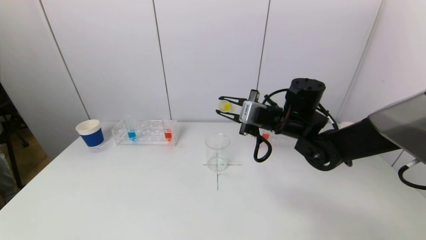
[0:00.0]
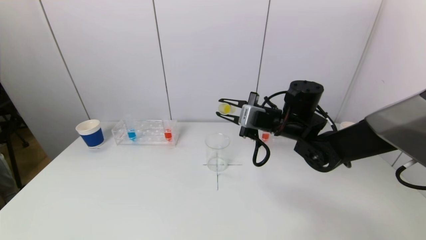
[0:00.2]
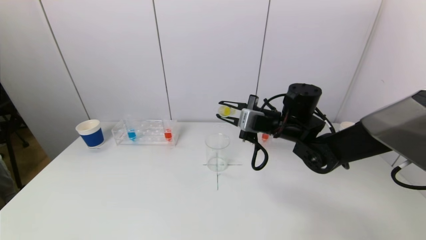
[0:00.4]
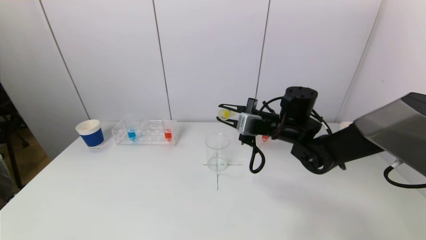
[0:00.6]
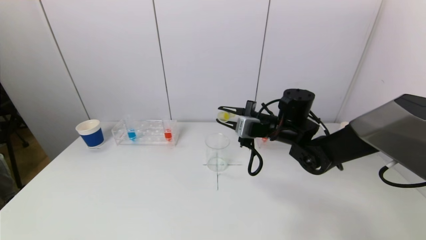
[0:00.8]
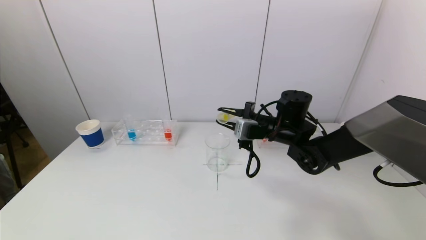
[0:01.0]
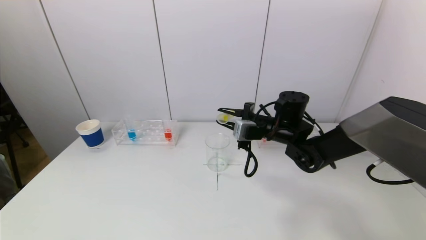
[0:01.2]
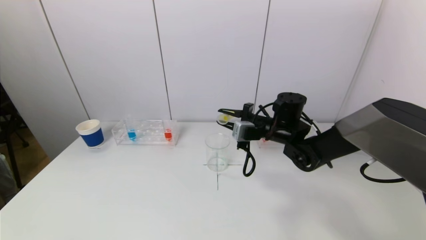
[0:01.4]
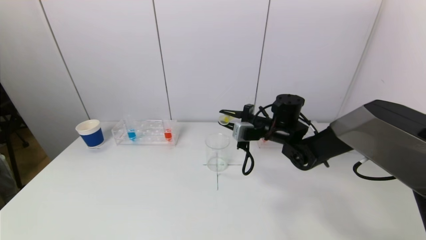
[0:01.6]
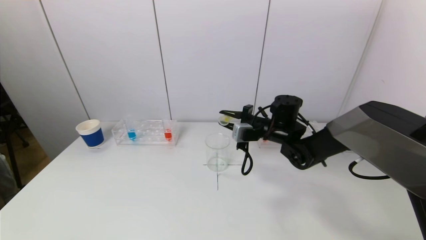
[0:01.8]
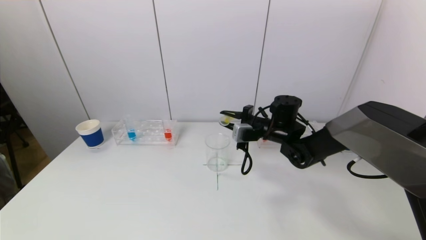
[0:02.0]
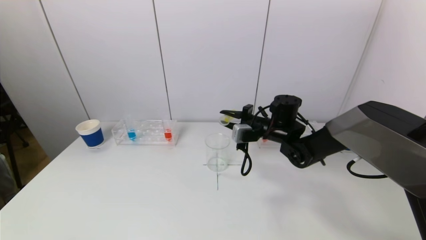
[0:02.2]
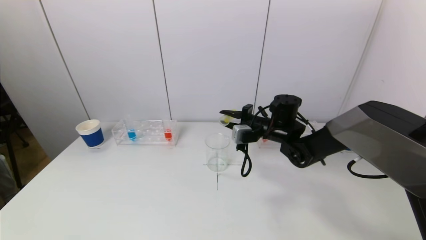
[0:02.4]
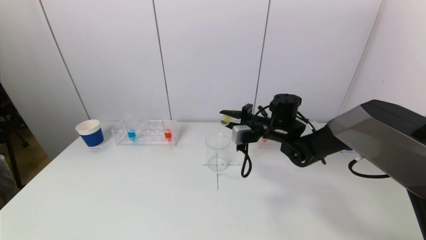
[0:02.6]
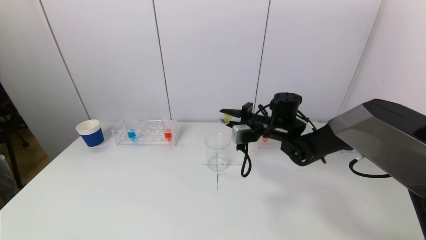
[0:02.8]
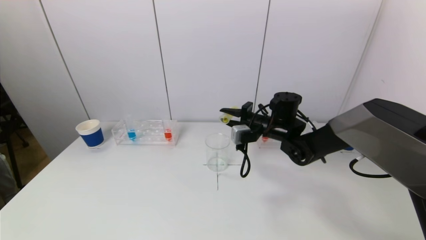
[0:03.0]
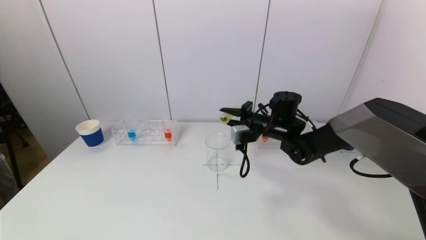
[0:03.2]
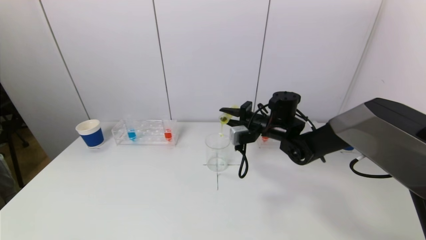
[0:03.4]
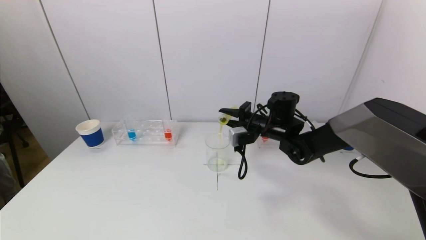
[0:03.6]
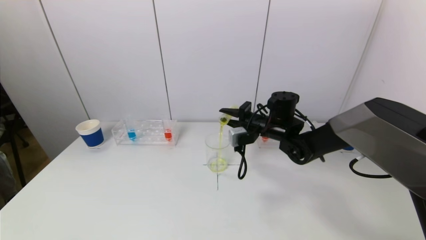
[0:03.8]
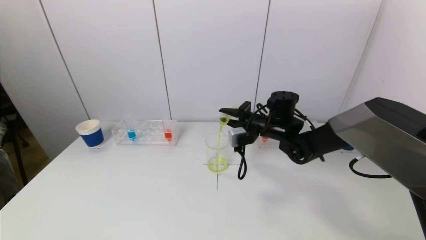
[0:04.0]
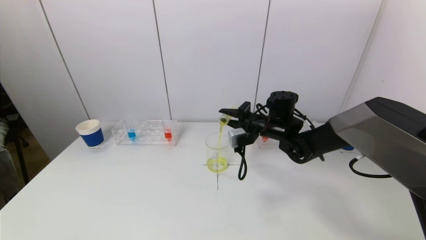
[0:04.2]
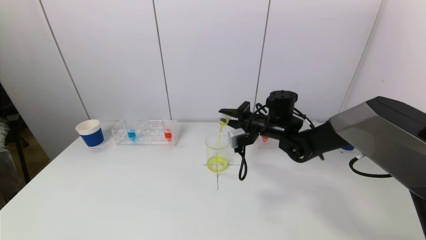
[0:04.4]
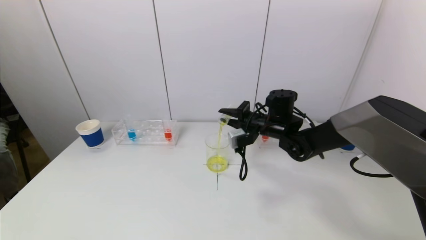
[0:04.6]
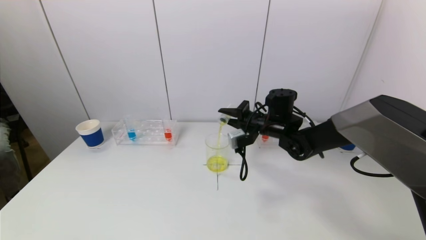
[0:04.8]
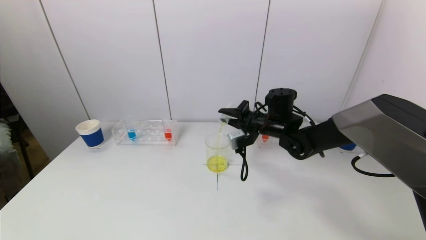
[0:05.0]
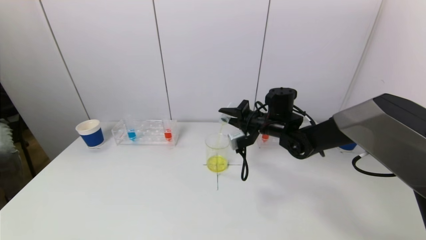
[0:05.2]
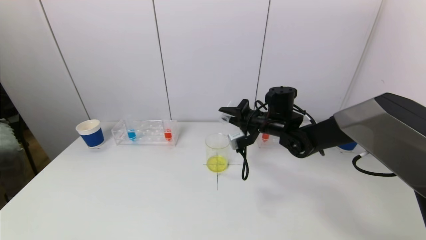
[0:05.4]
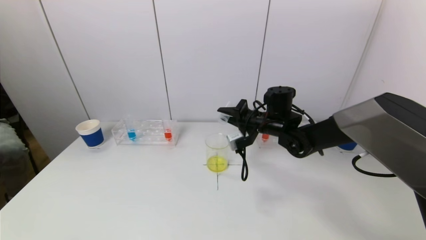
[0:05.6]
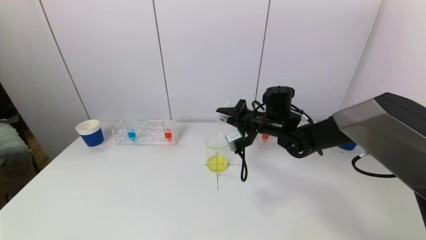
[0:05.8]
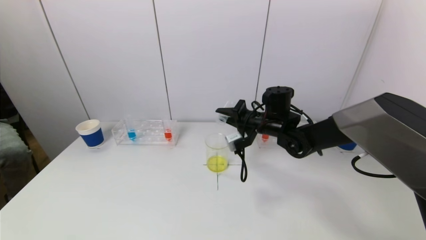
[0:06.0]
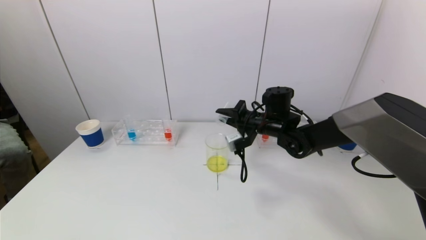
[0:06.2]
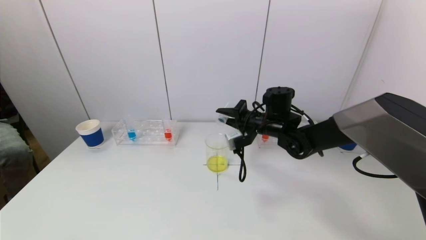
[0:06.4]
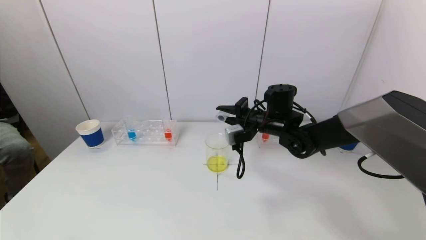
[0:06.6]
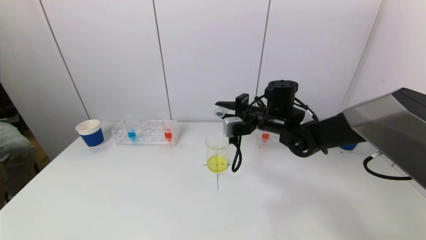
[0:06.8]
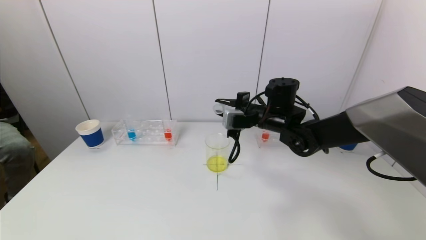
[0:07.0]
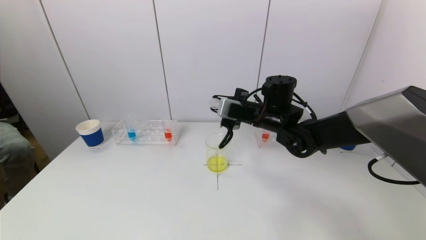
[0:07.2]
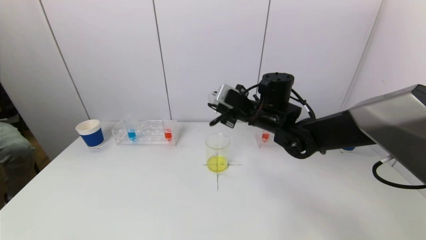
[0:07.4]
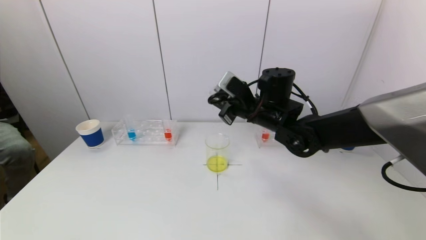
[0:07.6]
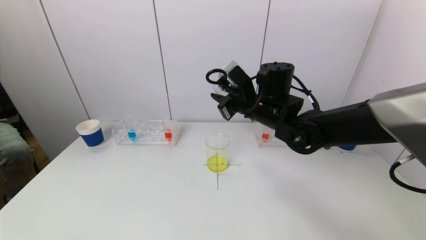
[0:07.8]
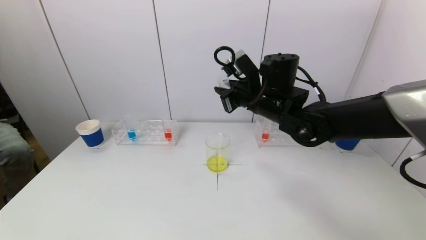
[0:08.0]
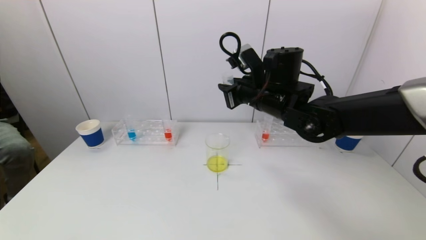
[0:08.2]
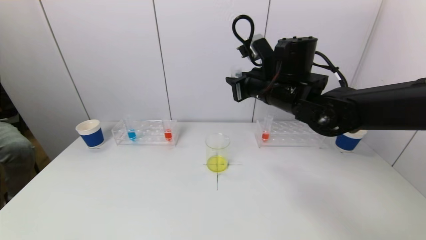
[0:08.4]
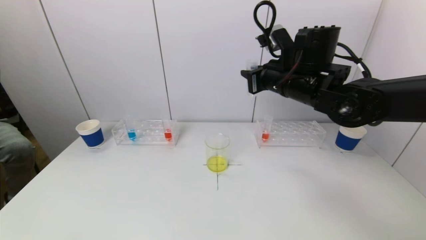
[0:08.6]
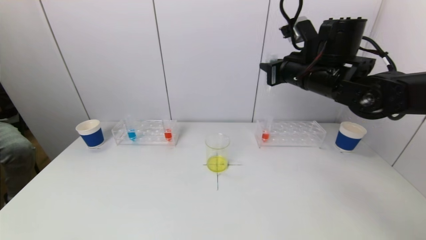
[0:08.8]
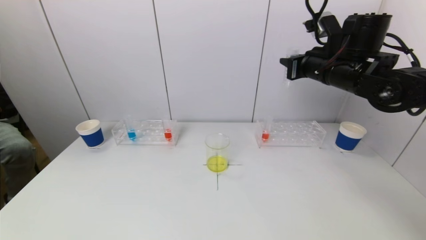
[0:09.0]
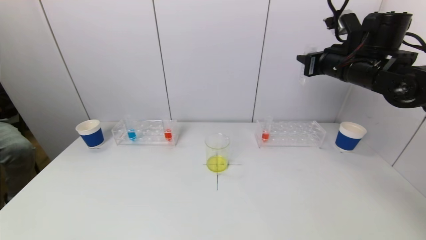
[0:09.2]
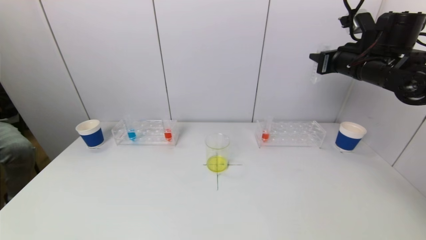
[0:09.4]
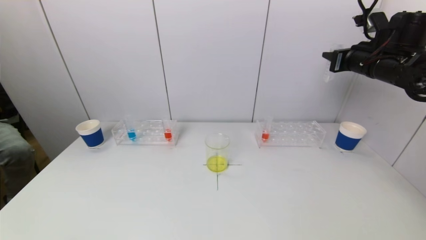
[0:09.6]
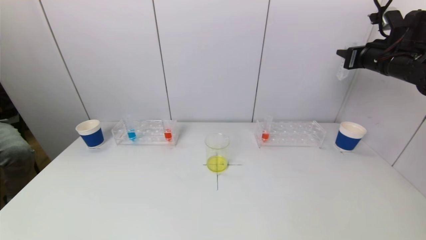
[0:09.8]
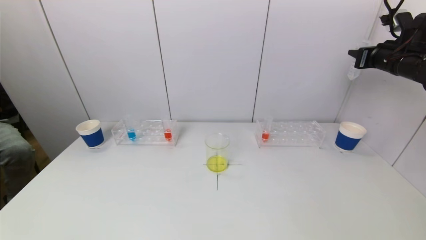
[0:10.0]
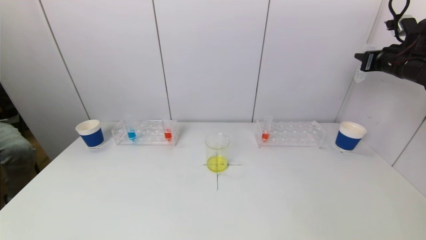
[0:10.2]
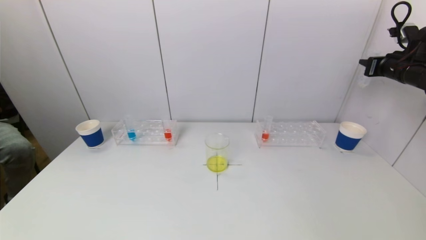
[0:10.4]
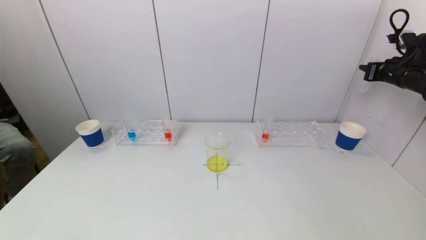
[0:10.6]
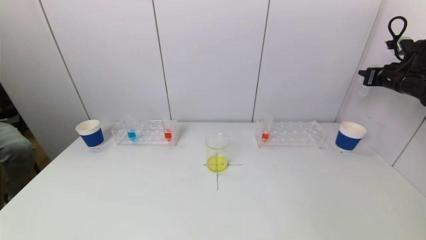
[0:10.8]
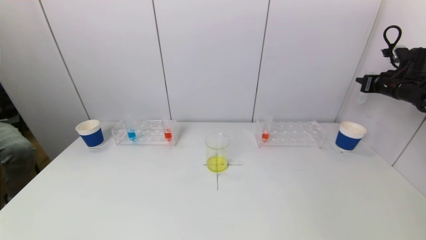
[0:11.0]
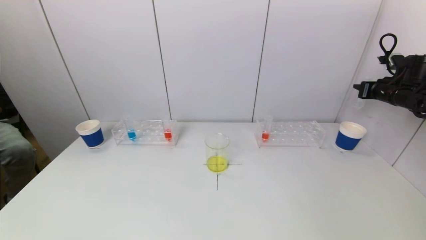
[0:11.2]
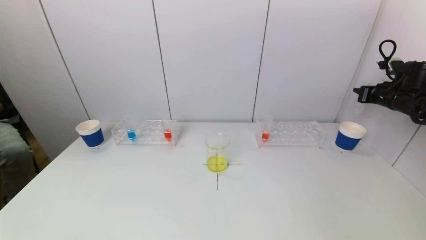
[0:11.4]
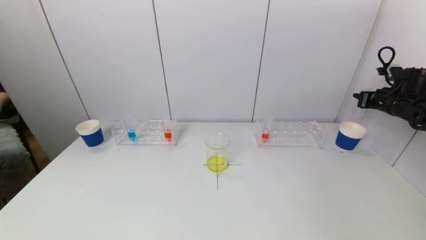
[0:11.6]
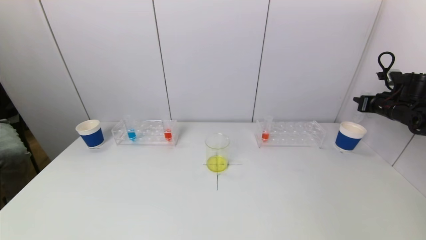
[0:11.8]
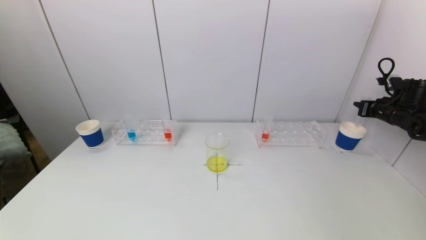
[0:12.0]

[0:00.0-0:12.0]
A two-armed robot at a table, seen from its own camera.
Task of the whole recording: pick up a test tube with pigment on left test tube rack and a test tube with pigment on right test tube rack by grippers and pour them into the beaker.
Step, 0:00.0 to 0:05.8: Pour the yellow reagent into the graduated cylinder with the right gripper.
0:00.0 to 0:01.6: The right gripper goes about 5 cm downward.
0:01.6 to 0:03.0: The grippers make only small movements.
0:03.0 to 0:04.4: The grippers move only a little.
0:04.4 to 0:06.0: There are only small adjustments of the grippers.
0:06.0 to 0:07.6: The right gripper is displaced upward by approximately 5 cm.
0:07.6 to 0:09.0: The right gripper shifts about 15 cm to the right and upward.
0:09.0 to 0:10.4: The right gripper travels to the right by approximately 20 cm.
0:10.4 to 0:12.0: The right gripper goes roughly 10 cm downward.

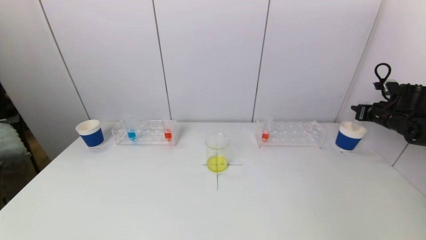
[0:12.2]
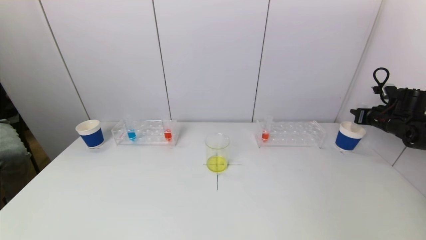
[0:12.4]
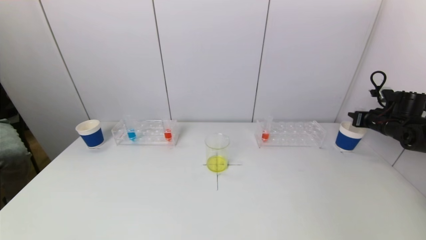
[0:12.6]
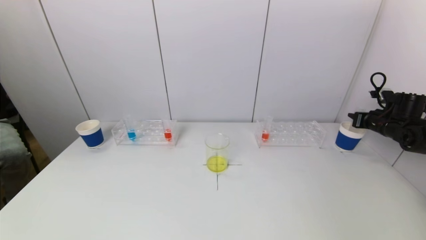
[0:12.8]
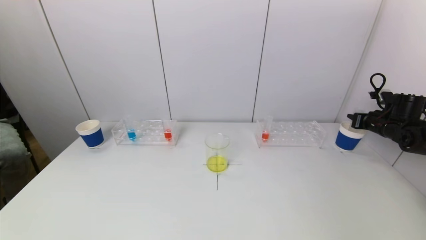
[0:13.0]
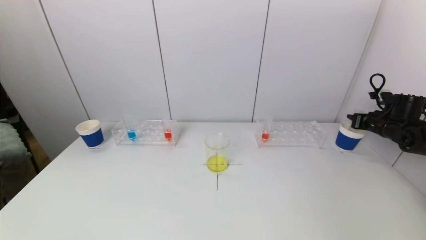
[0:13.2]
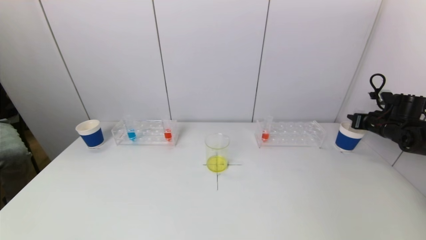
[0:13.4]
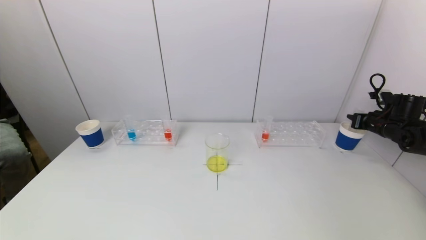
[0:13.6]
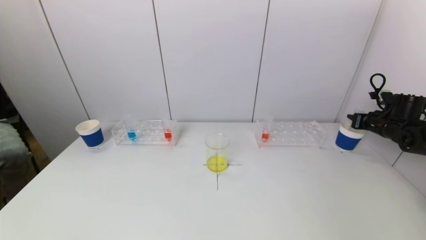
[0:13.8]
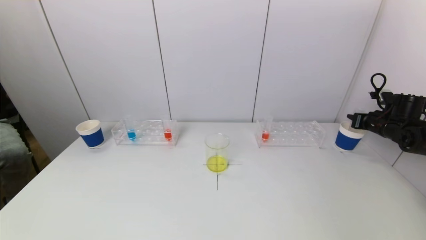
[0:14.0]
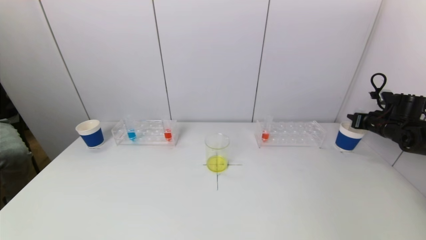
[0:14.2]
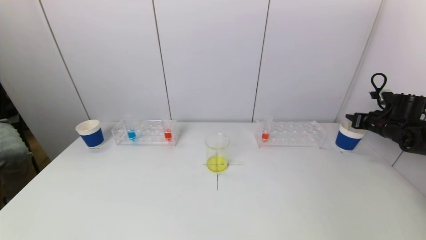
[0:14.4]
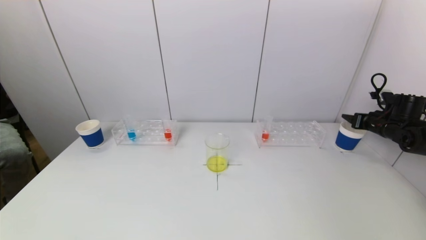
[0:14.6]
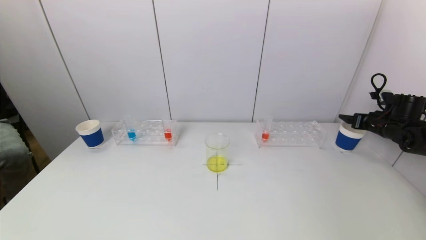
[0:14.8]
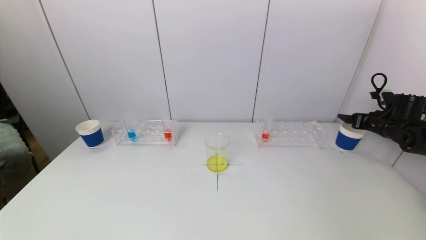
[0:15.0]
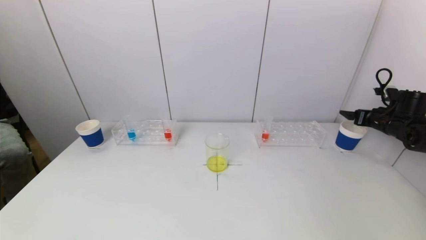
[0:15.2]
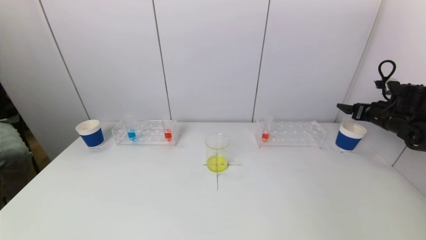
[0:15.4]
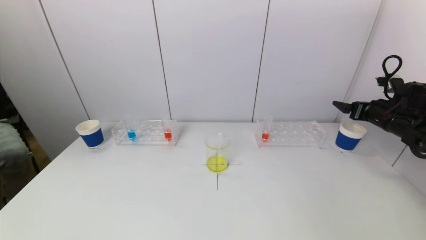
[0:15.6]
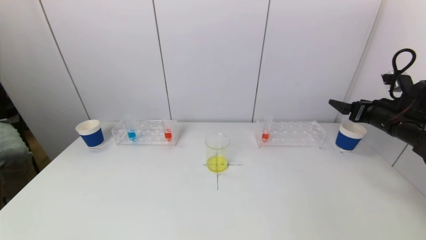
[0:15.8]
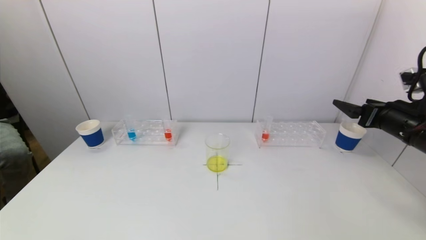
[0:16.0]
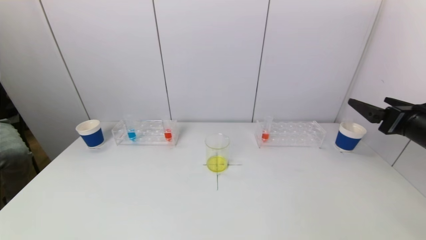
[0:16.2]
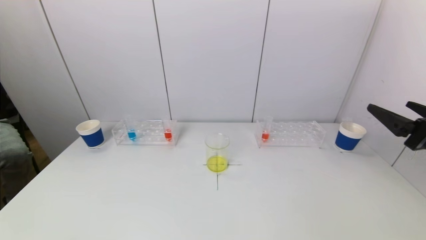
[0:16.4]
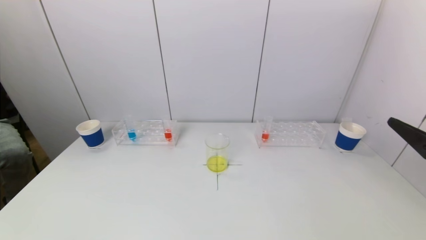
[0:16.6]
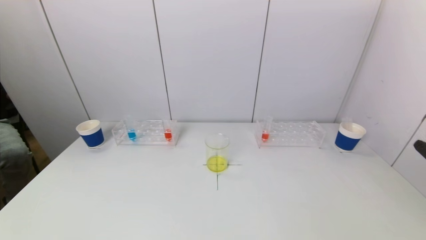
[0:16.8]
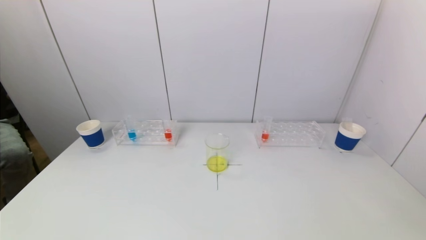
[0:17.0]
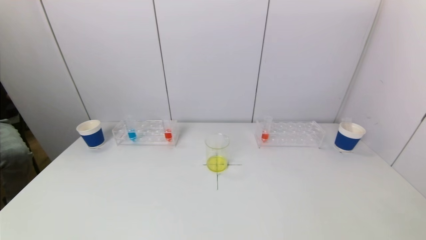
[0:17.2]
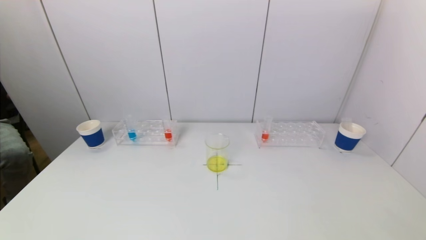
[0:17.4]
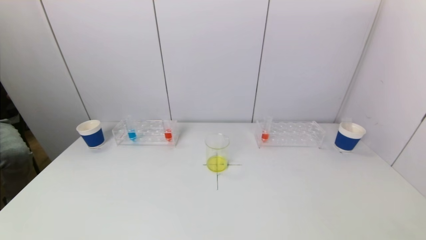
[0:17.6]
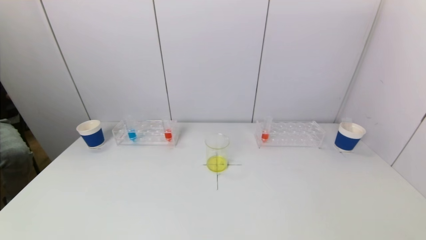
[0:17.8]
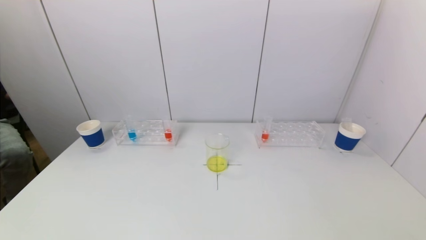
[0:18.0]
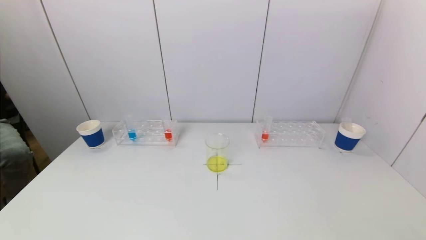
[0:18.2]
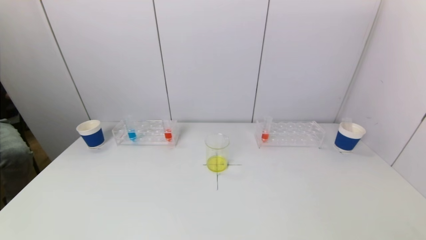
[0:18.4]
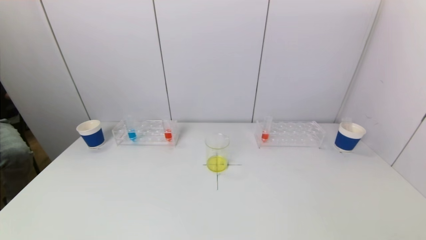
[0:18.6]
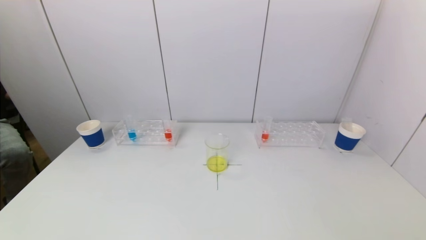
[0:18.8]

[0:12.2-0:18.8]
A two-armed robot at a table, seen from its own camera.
Task of the whole recording: pick up a test tube with pigment on left test tube rack and a test tube with pigment on right test tube rack by grippers and pour them into the beaker.
Step, 0:12.2 to 0:15.0: Place the test tube into the paper cup with the right gripper.
0:12.2 to 0:13.8: There are only small adjustments of the grippers.
0:13.8 to 0:15.4: The right gripper opens up.
0:15.4 to 0:17.2: The right gripper moves backward, about 40 cm.
